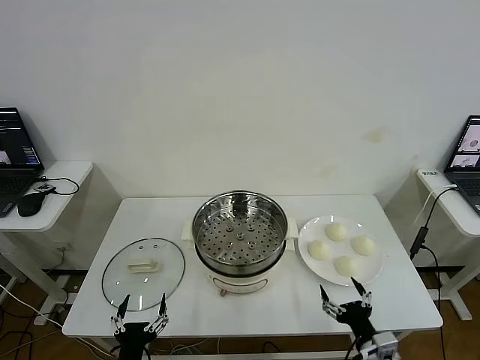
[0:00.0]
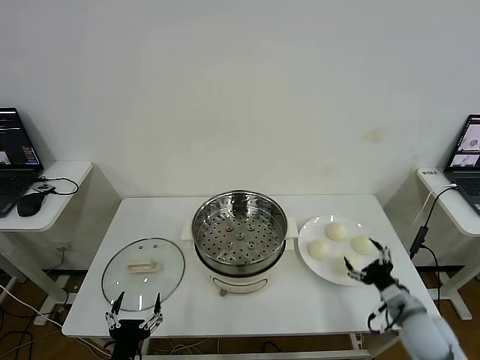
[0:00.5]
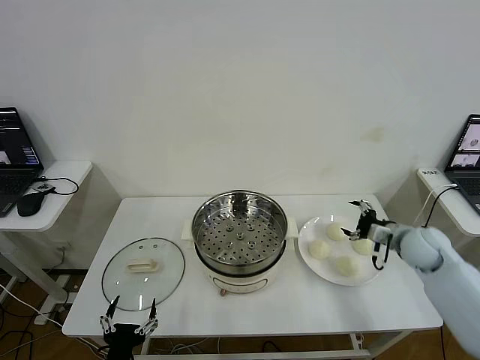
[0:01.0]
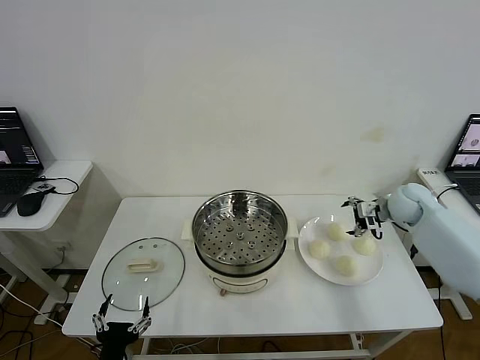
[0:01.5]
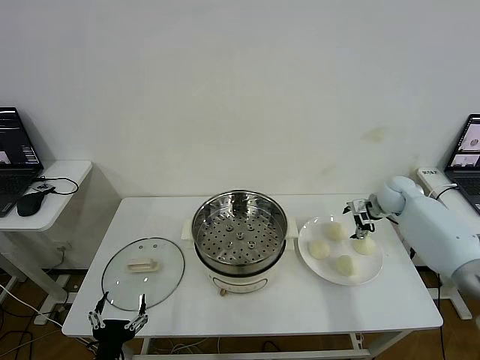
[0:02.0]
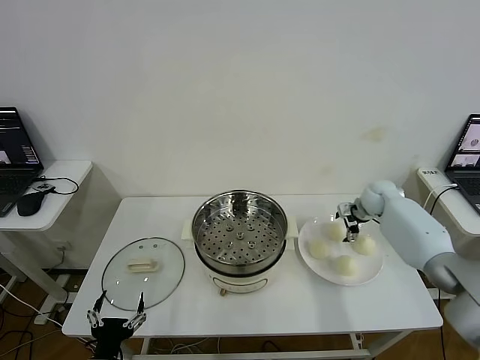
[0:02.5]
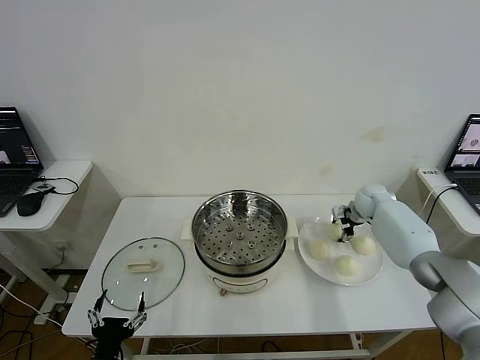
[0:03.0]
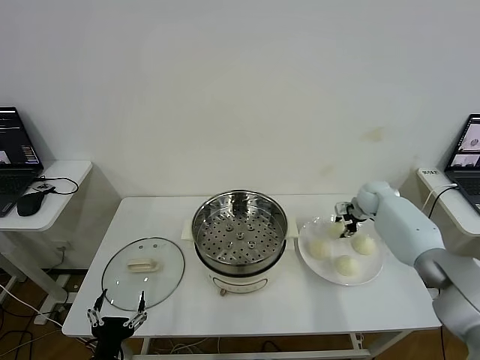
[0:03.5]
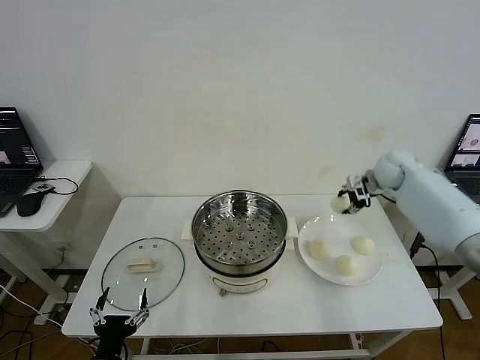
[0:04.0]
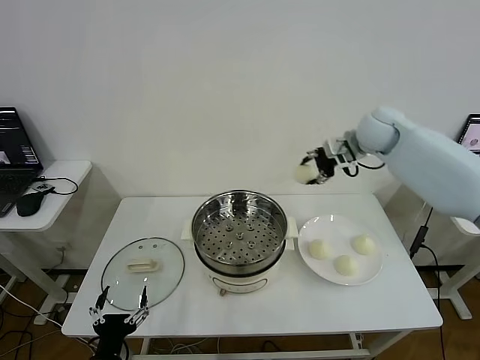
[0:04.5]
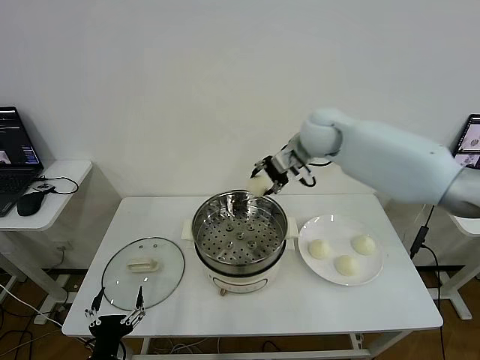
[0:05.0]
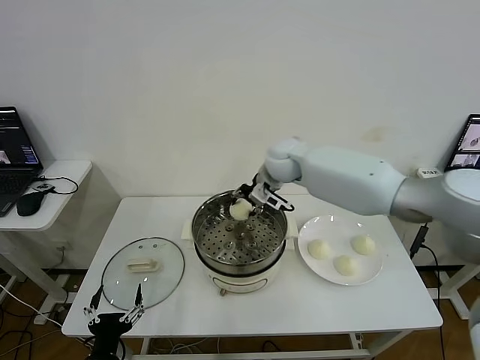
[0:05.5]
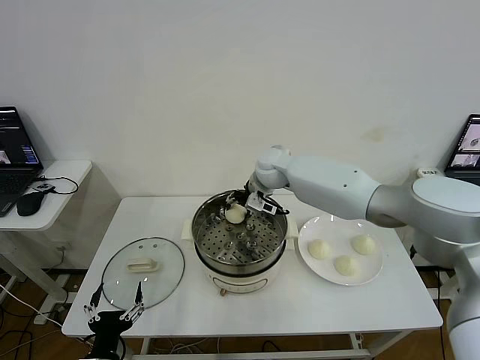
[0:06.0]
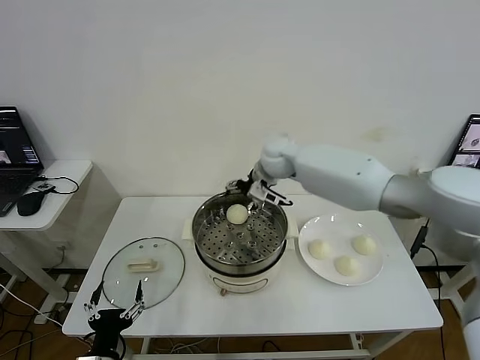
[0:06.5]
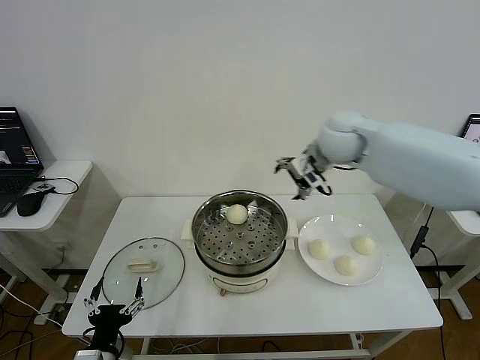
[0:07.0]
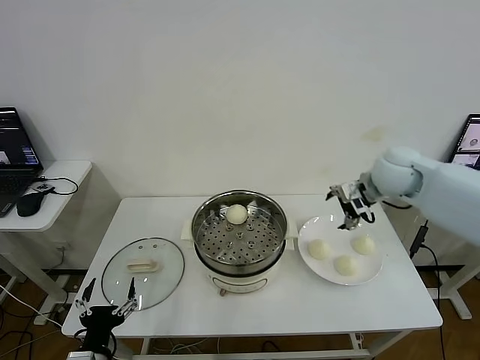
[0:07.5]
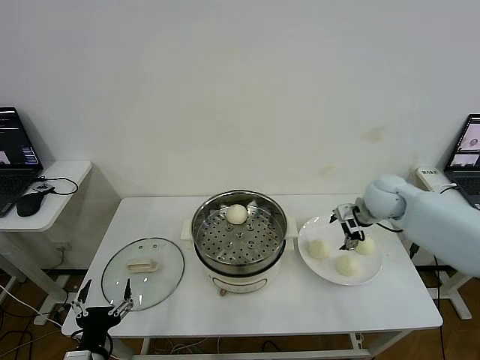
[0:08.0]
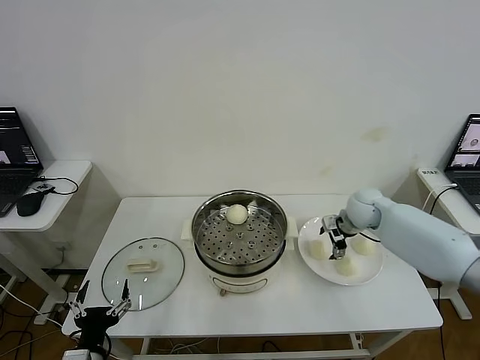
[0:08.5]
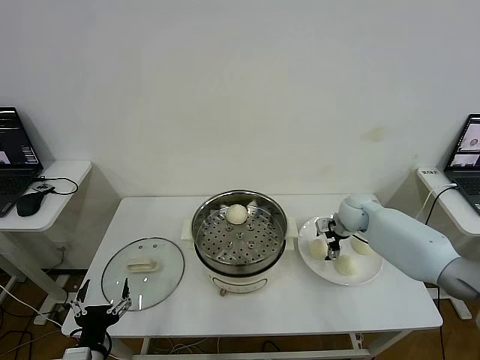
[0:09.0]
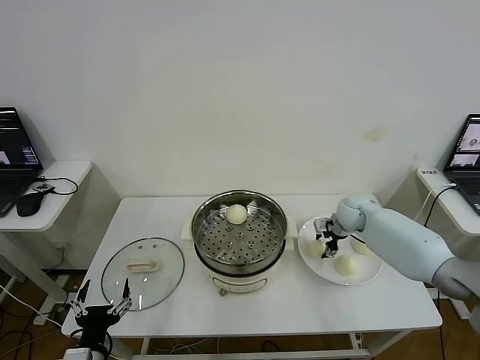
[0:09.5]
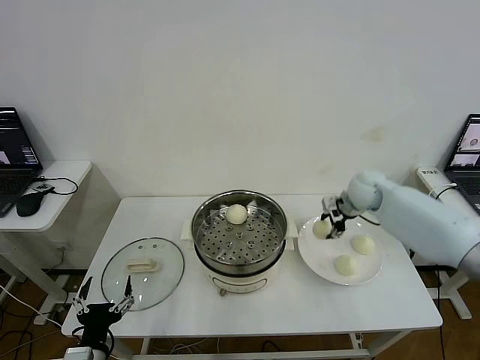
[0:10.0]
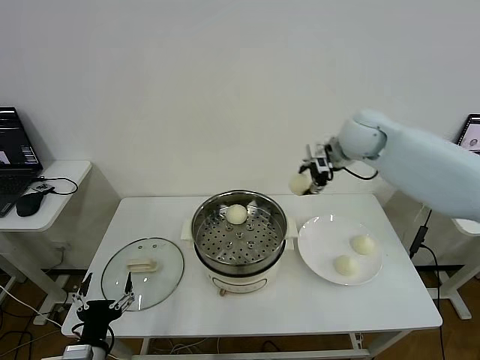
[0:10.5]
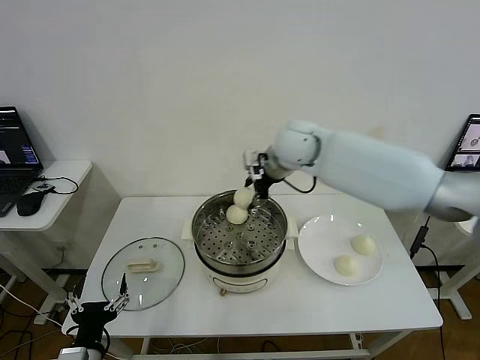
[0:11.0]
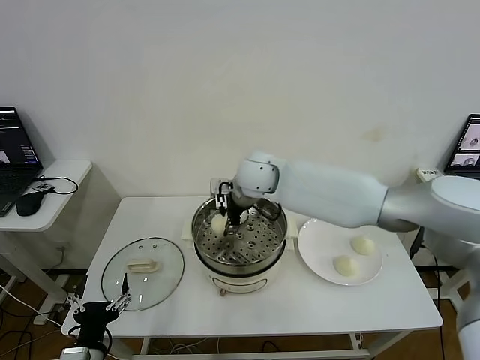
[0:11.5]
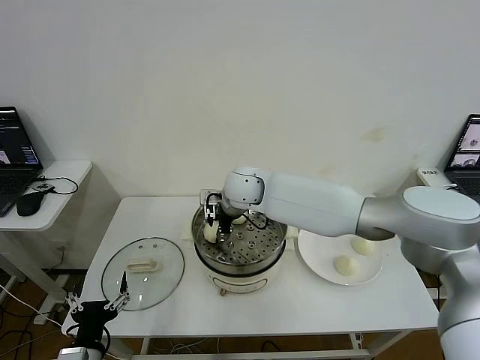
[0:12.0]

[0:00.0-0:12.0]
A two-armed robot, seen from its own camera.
Step, 0:00.0 to 0:03.0: Grasp the baozi in the plate with right gripper.
Step, 0:03.5 to 0:06.0: Place the baozi on the steamer with right gripper.
Step, 0:06.5 to 0:09.5: Grasp the baozi in the plate with right gripper.
0:02.0 to 0:04.0: The right gripper heads upward, covering some 10 cm, and closes up.
0:04.0 to 0:06.0: The right gripper moves to the left, about 30 cm, and opens its fingers.
0:06.0 to 0:08.0: The right gripper moves to the right, some 25 cm, and opens up.
0:08.0 to 0:10.0: The right gripper reaches some 10 cm downward, then returns, and closes.
0:10.0 to 0:12.0: The right gripper shifts roughly 30 cm to the left.

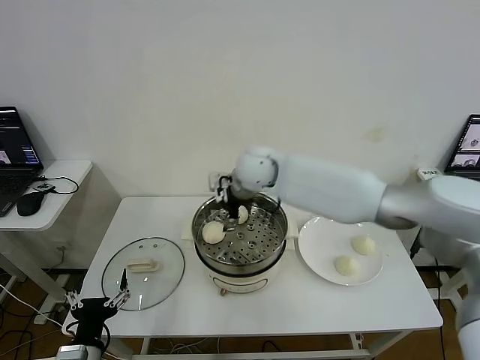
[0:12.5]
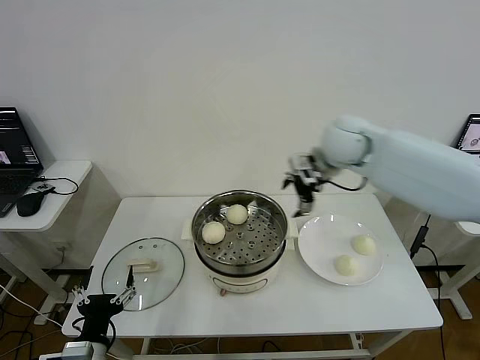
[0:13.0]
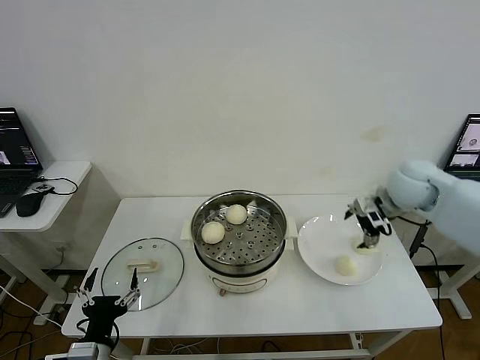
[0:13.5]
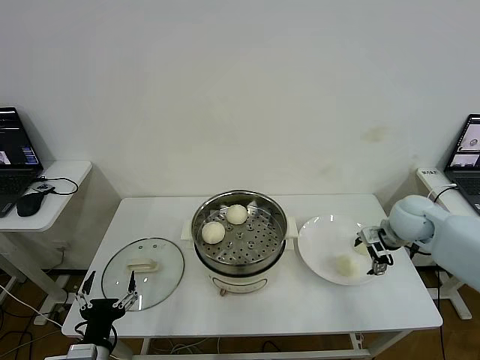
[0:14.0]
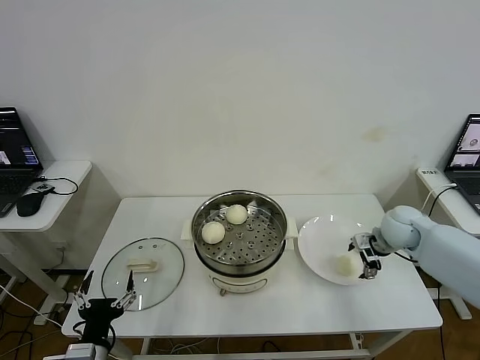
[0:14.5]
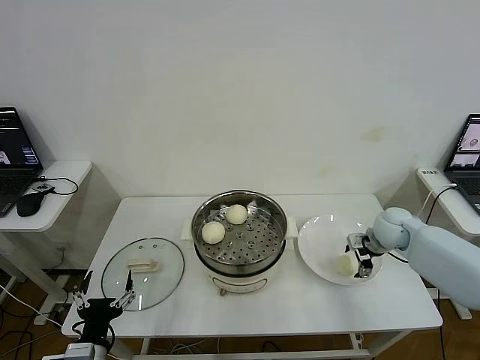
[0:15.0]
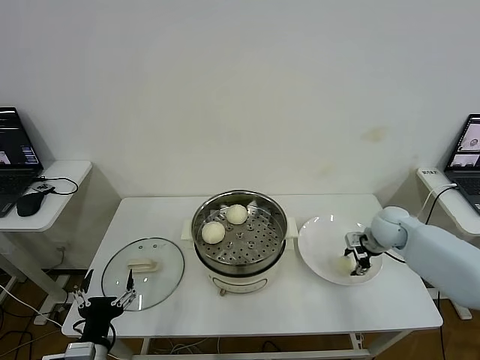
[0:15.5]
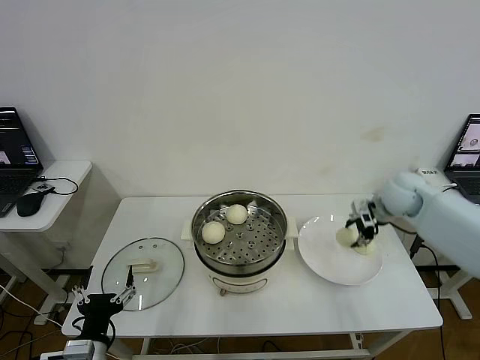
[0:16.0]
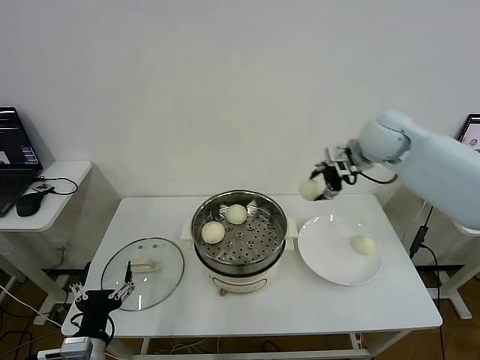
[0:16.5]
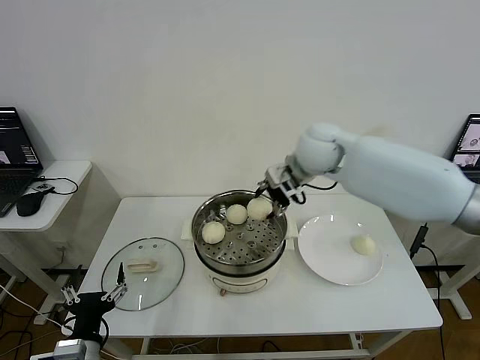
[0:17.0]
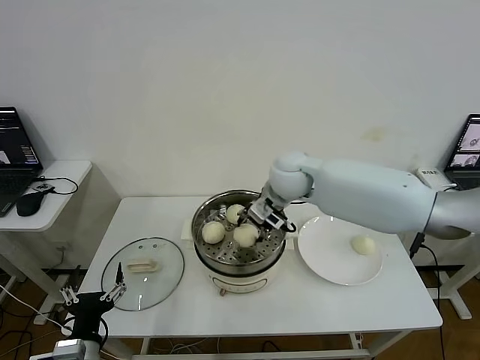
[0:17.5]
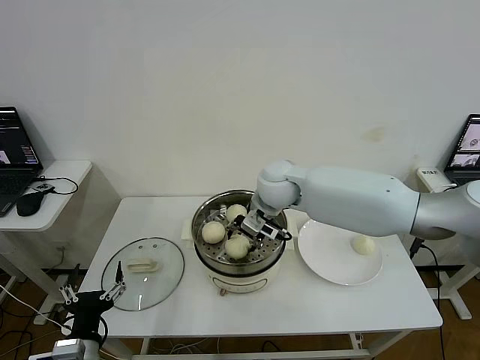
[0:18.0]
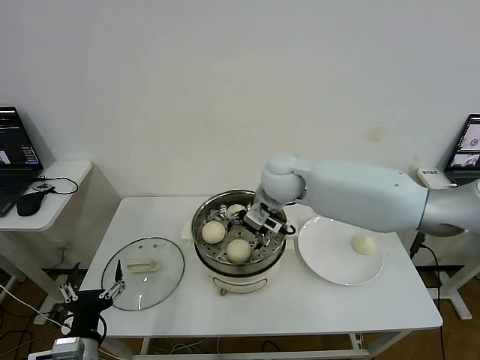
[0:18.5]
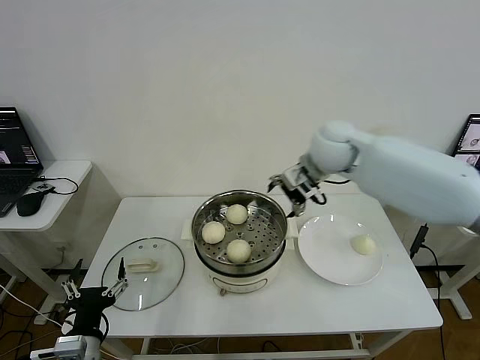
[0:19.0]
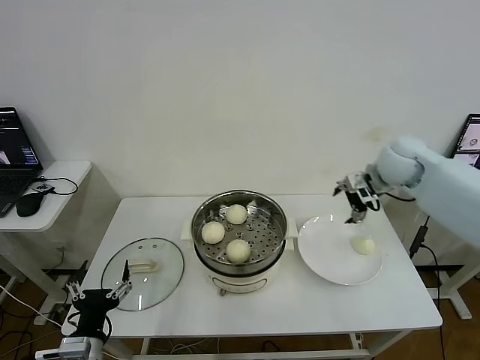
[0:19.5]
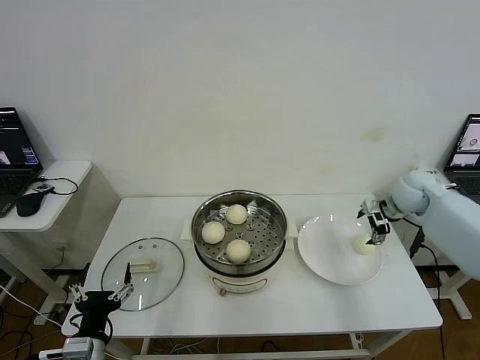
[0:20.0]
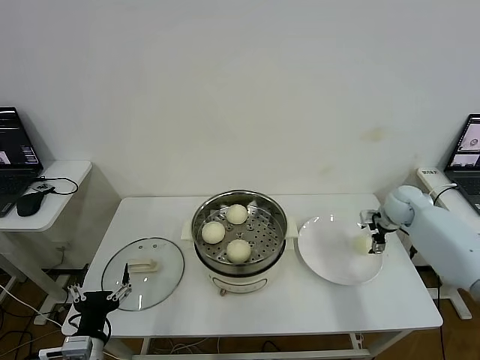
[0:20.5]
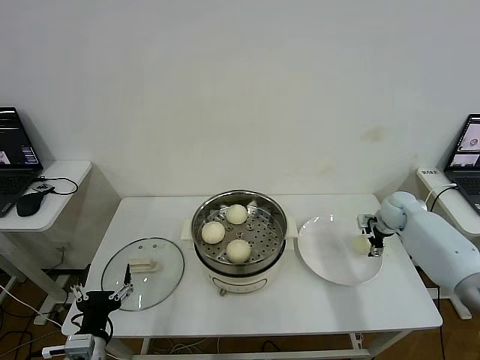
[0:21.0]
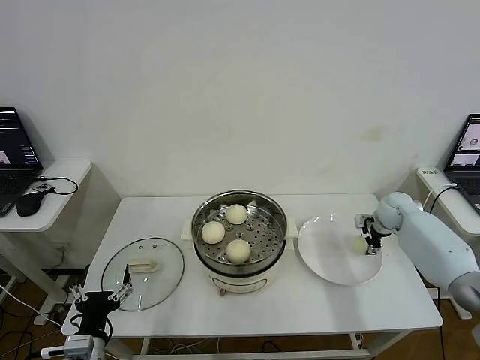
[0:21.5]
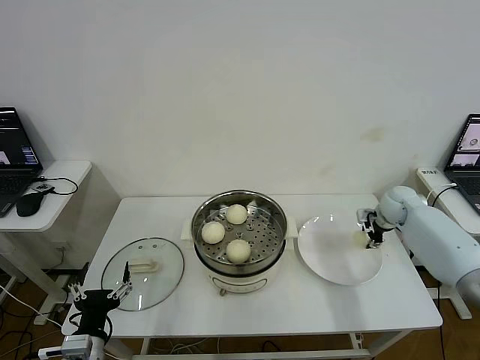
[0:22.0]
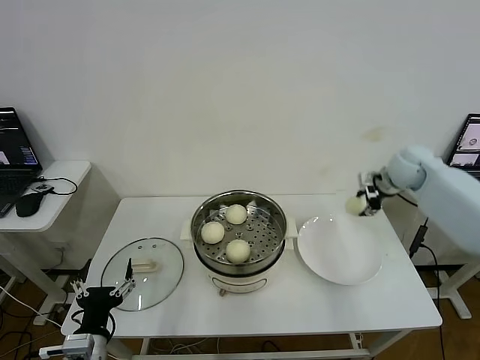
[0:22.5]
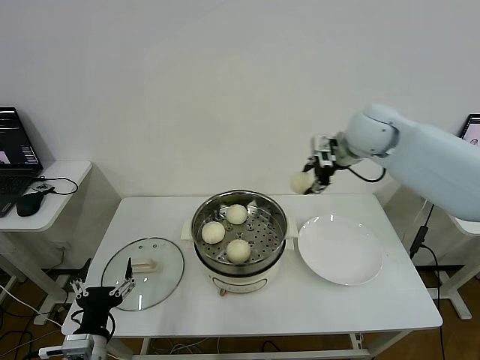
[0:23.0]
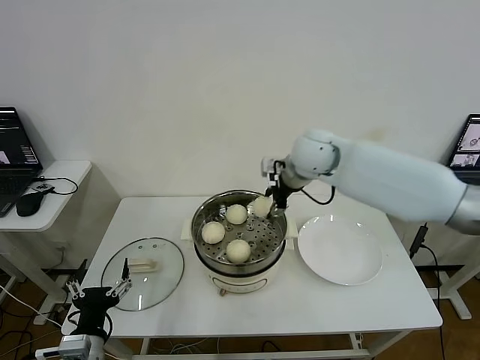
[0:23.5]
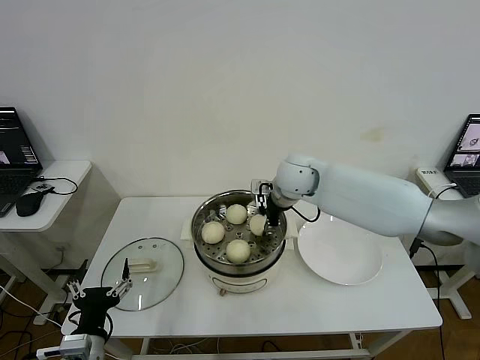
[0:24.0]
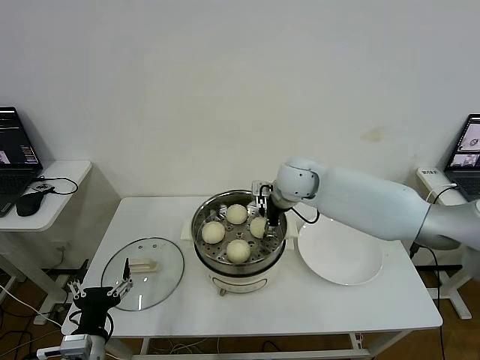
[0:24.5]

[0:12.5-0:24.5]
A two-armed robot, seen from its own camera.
Step, 0:12.5 to 0:15.5: Grasp the baozi in the plate with right gripper.
Step, 0:16.0 to 0:18.0: Place the baozi on the steamer with right gripper.
Step, 0:18.5 to 0:21.5: Grasp the baozi in the plate with right gripper.
0:12.5 to 0:14.5: The right gripper heads to the right and downward, covering about 35 cm.
0:14.5 to 0:16.5: The right gripper shifts approximately 25 cm upward and to the left, and closes.
0:16.5 to 0:18.5: The right gripper heads to the left and downward, covering approximately 20 cm, and opens up.
0:18.5 to 0:20.5: The right gripper travels to the right and downward by some 35 cm.
0:20.5 to 0:22.5: The right gripper travels upward by approximately 15 cm, and closes.
0:22.5 to 0:24.5: The right gripper heads to the left, covering roughly 25 cm, and opens.

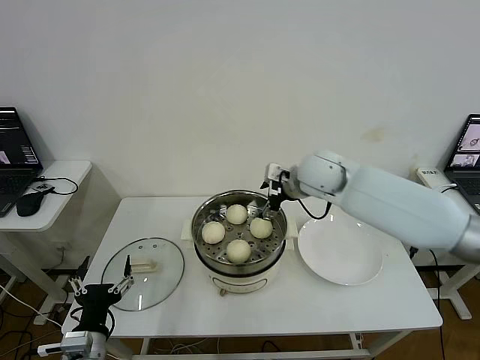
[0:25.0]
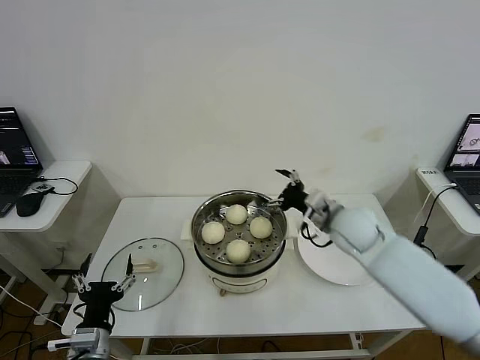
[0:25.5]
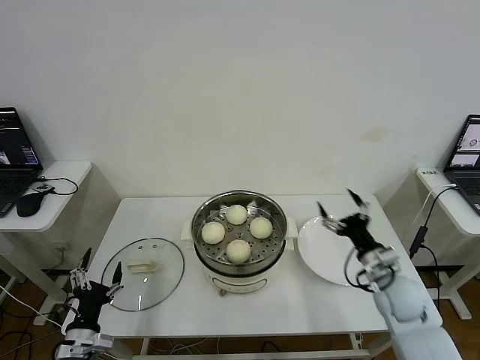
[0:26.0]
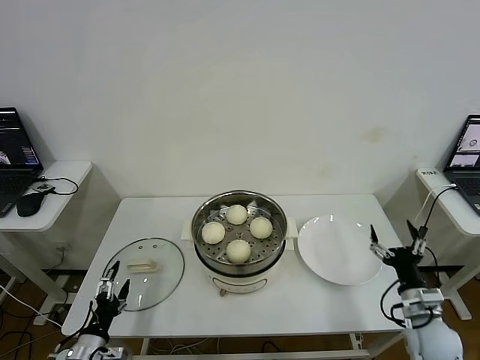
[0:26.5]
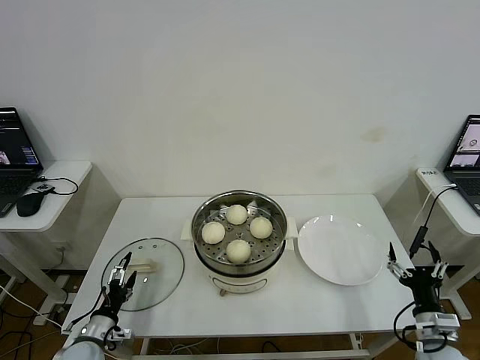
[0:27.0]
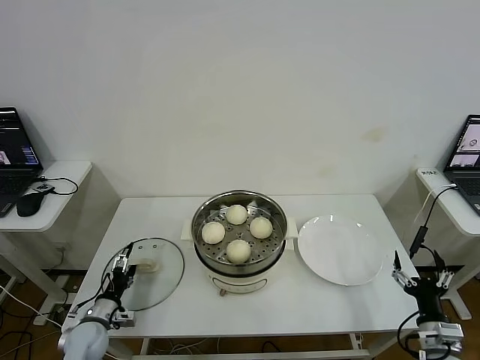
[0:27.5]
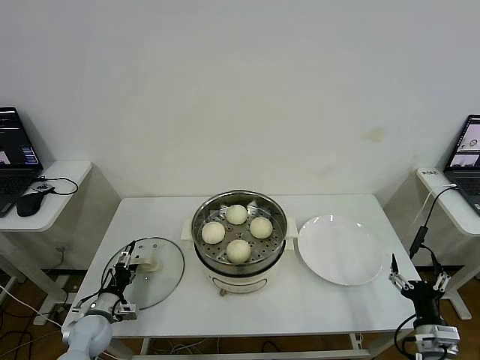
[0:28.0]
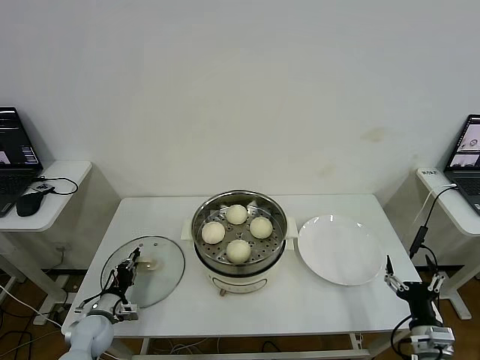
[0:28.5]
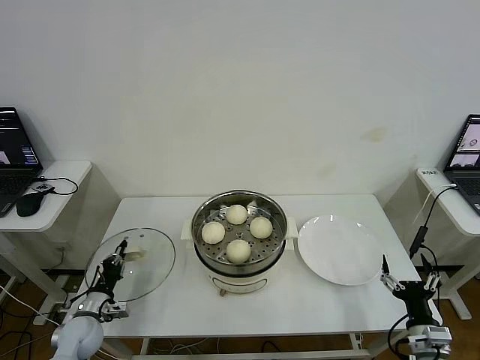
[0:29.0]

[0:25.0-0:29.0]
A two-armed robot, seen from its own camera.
Step, 0:25.0 to 0:28.5: Grasp the pot lid with left gripper.
0:25.0 to 0:27.0: The left gripper shifts about 15 cm downward, to the left and forward, while the right gripper moves backward, downward and to the right, roughly 50 cm.
0:27.0 to 0:29.0: The left gripper heads forward, covering roughly 5 cm, and closes up.
